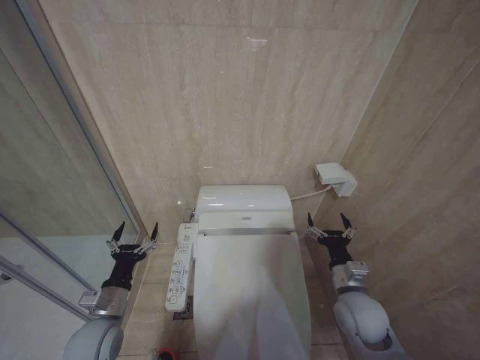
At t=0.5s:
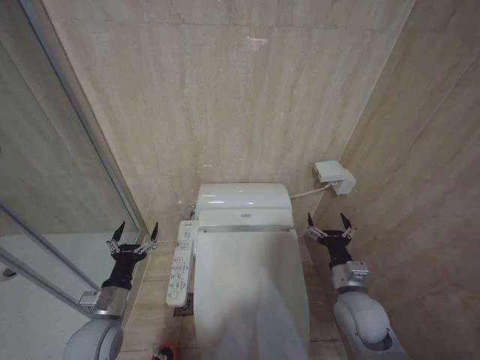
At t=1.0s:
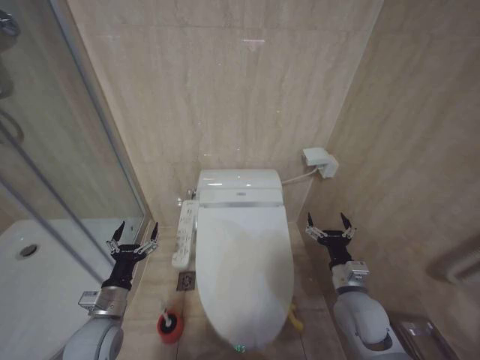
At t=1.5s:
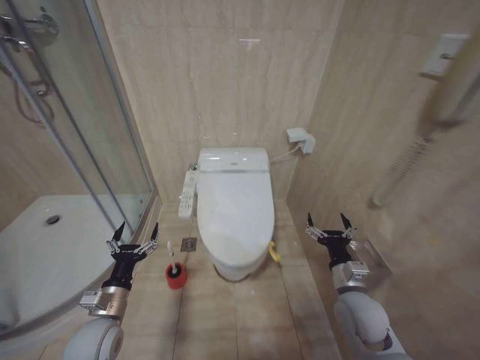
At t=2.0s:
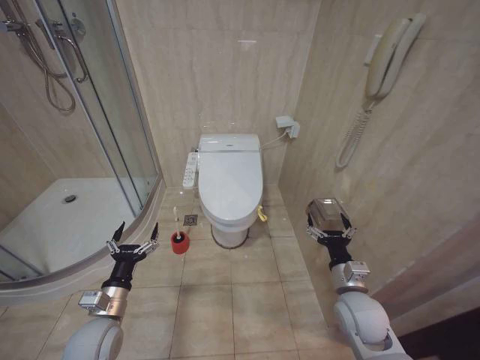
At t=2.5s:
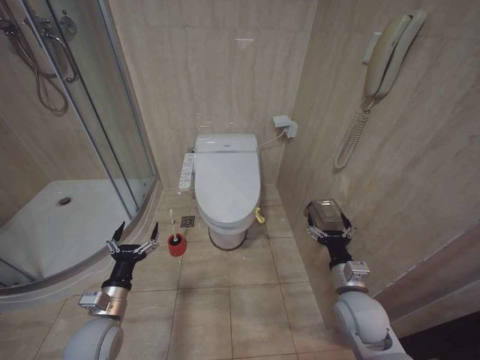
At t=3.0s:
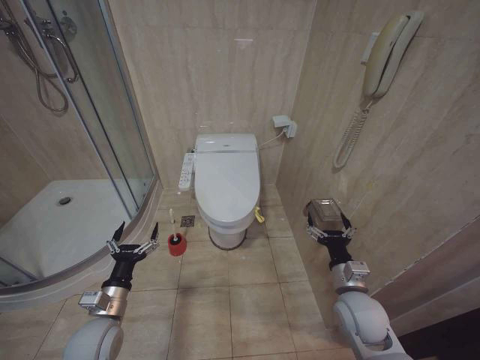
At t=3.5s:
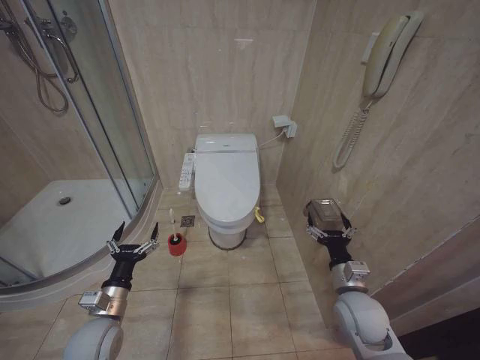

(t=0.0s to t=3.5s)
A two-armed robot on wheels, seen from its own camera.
Task of the whole recording: Open the toilet lid, clean the toilet bowl with a toilet brush, close the toilet lid, and flush.
t=2.0s - t=3.5s: The two grippers keep their place.

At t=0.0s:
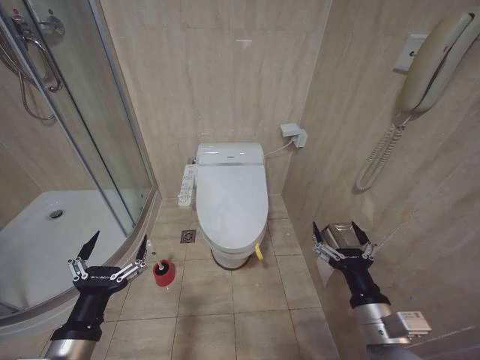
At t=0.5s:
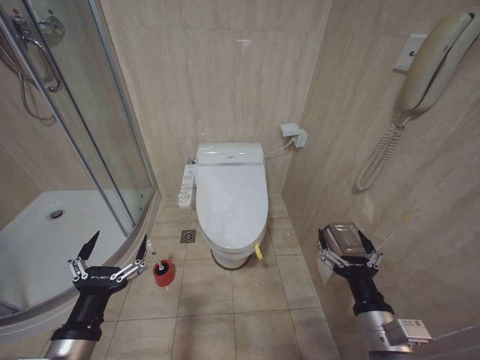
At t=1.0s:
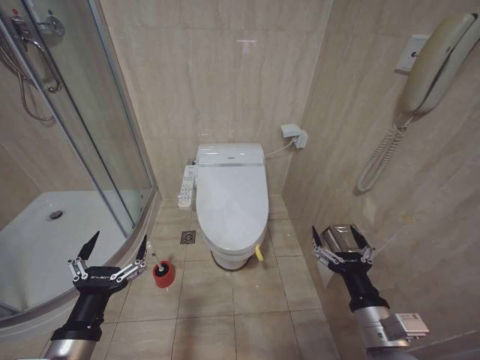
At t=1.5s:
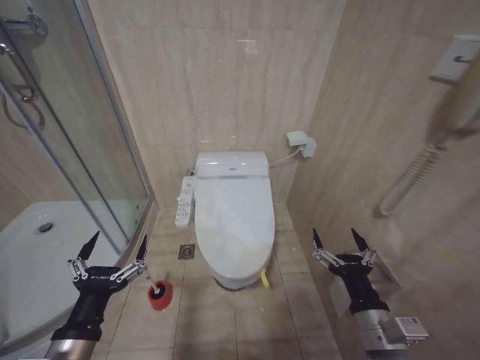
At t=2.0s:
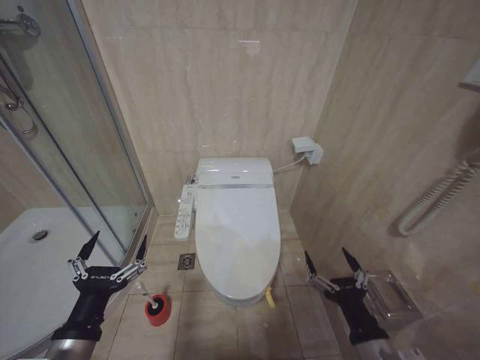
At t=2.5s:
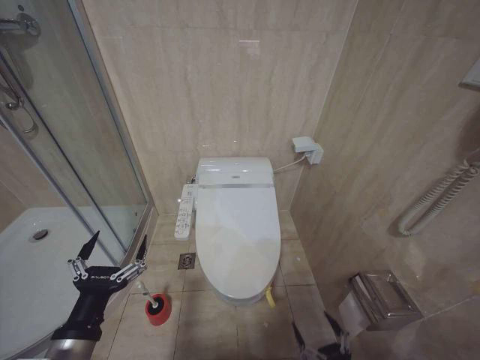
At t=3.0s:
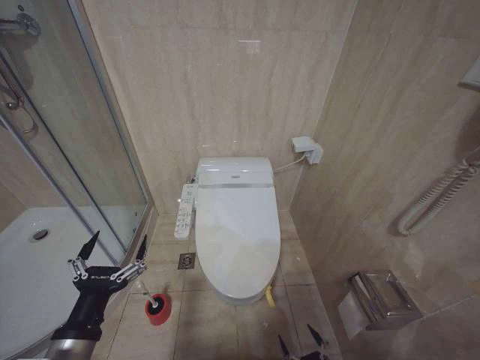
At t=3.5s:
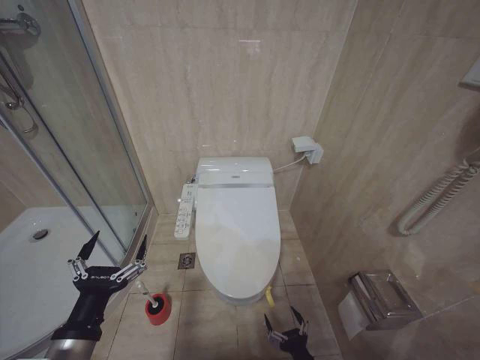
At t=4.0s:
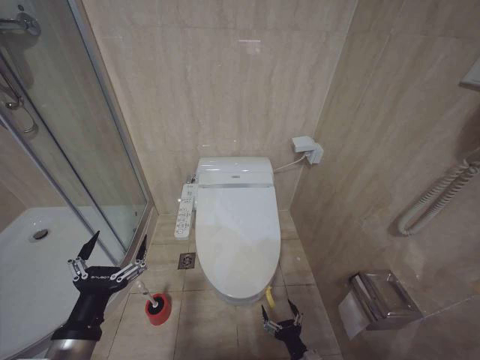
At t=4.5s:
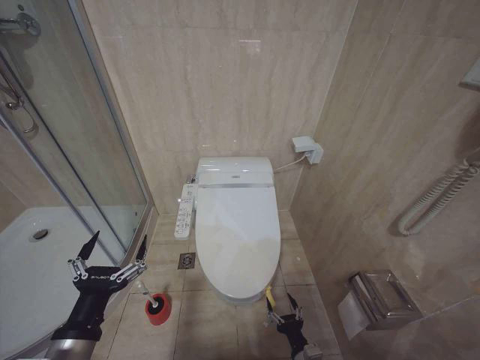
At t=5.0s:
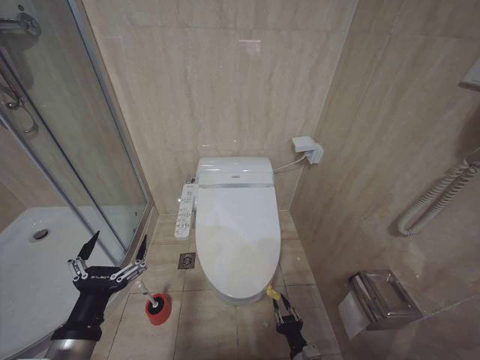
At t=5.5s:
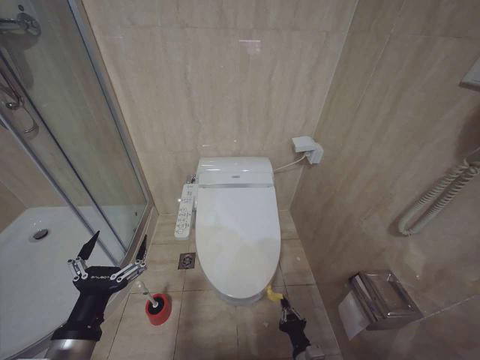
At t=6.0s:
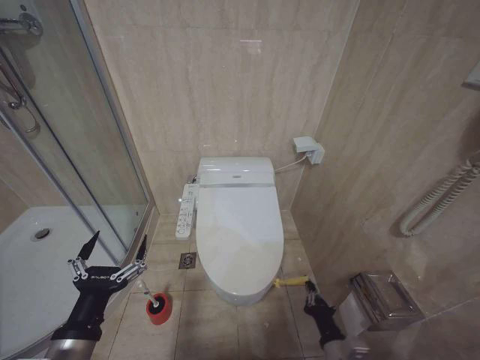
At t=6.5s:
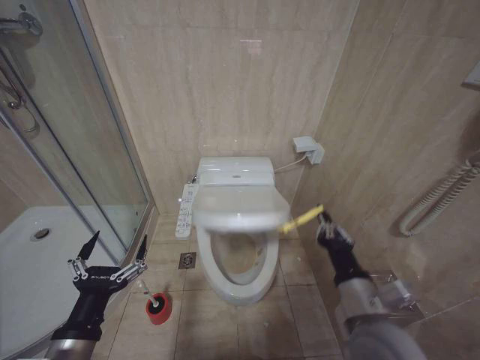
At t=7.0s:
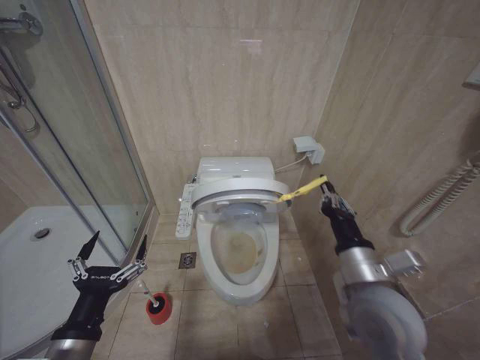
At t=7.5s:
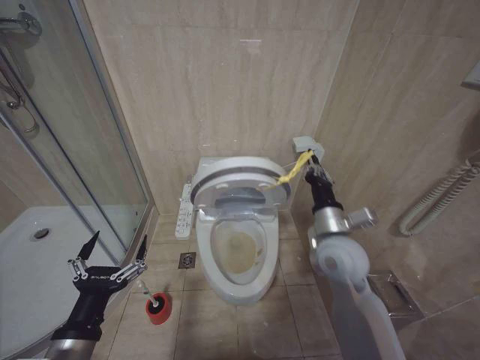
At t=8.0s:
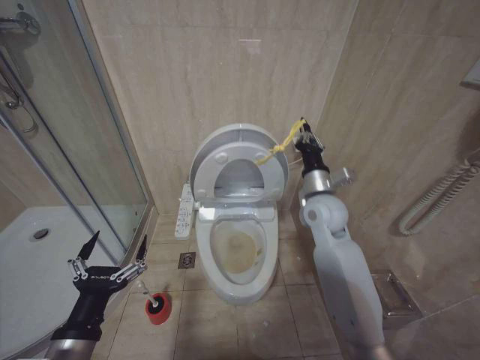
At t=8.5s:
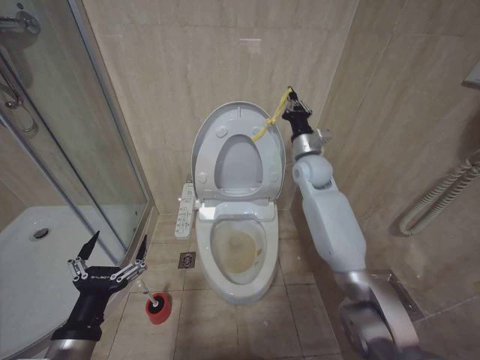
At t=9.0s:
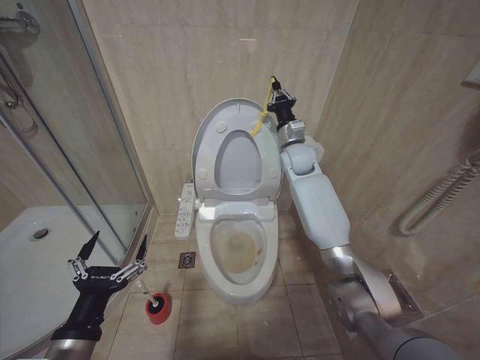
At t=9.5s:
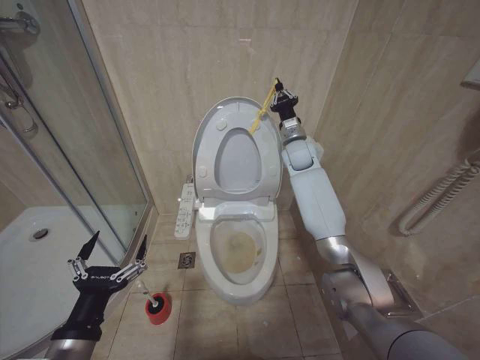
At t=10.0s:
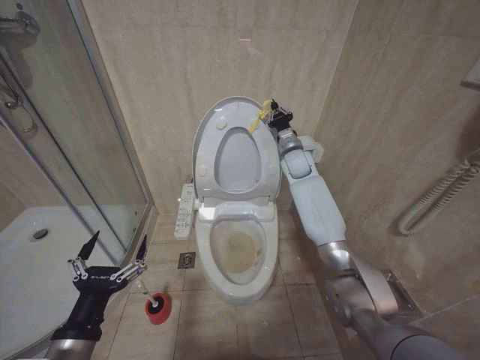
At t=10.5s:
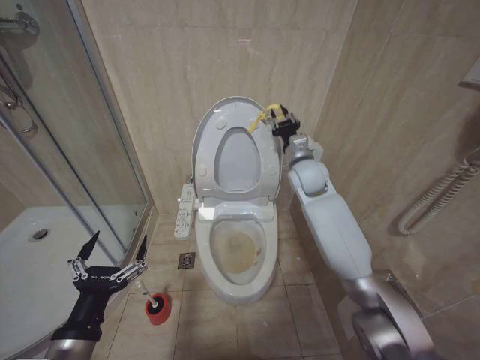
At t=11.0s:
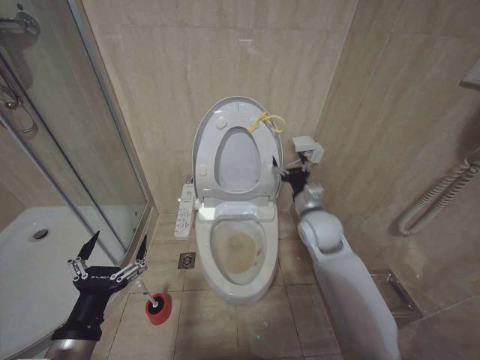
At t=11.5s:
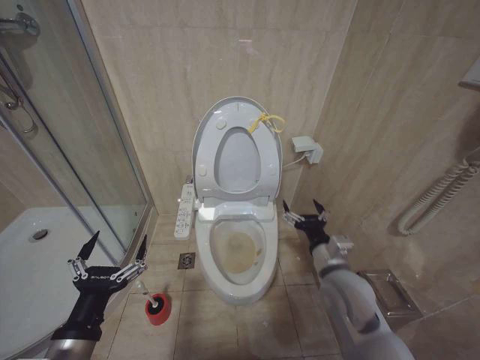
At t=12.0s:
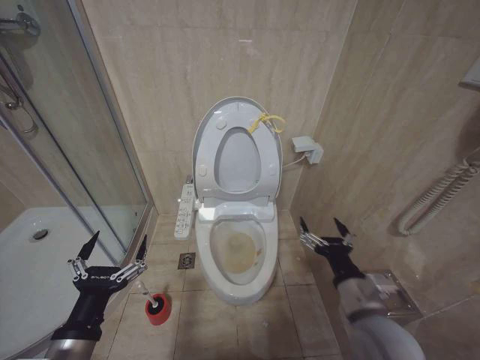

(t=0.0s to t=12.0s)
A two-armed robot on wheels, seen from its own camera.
Task of the whole recording: Open the toilet lid, clean the toilet bowl with a toilet brush, close the toilet lid, and flush.
t=2.0s - t=4.0s: The right gripper shifts roughly 25 cm downward.
t=4.0s - t=6.0s: The right gripper goes about 10 cm upward, and closes.
t=6.0s - t=8.0s: The right gripper is displaced upward and forward by approximately 40 cm.
t=8.0s - t=10.0s: The right gripper travels forward by roughly 20 cm.
t=10.0s - t=12.0s: The right gripper travels backward by some 40 cm, and opens its fingers.

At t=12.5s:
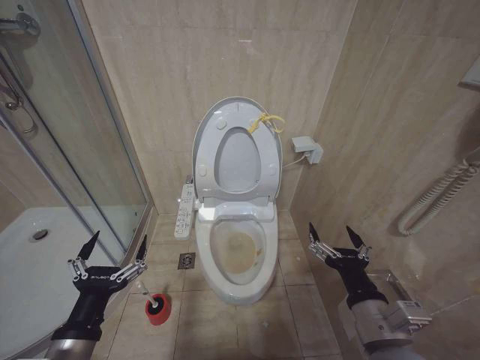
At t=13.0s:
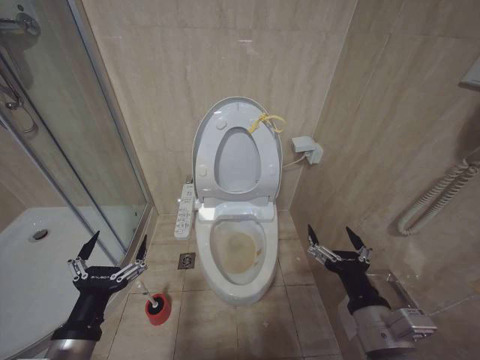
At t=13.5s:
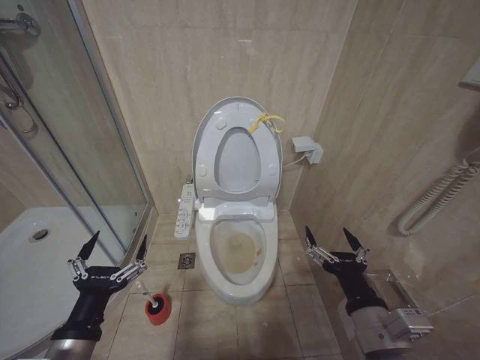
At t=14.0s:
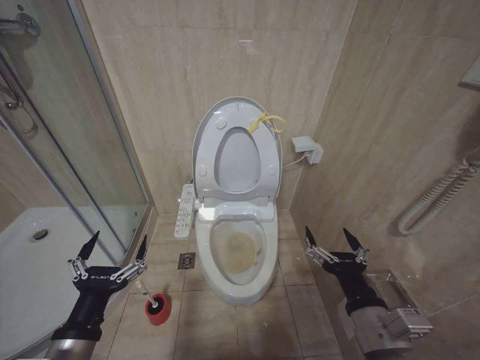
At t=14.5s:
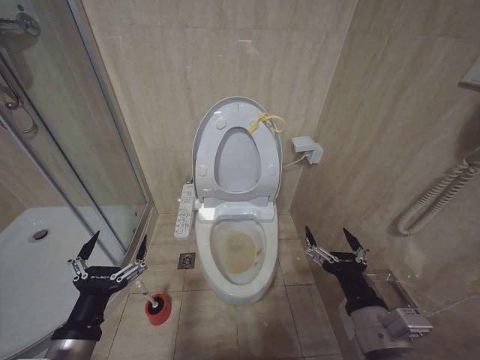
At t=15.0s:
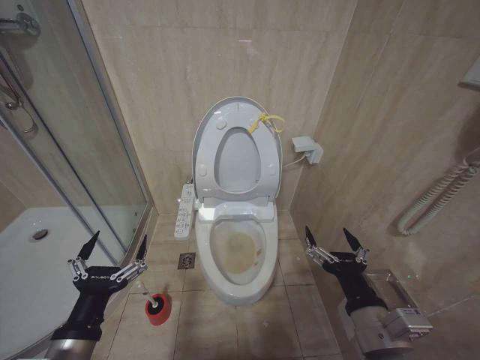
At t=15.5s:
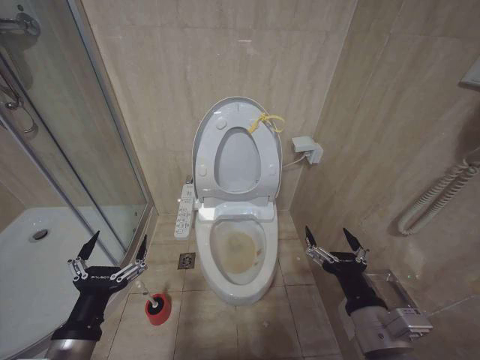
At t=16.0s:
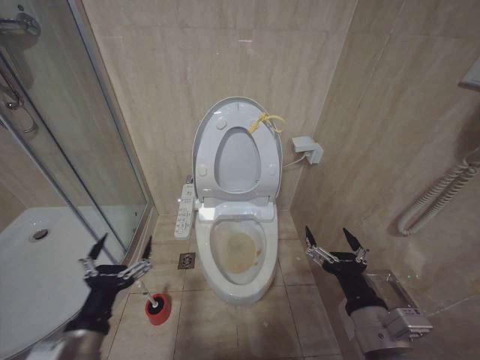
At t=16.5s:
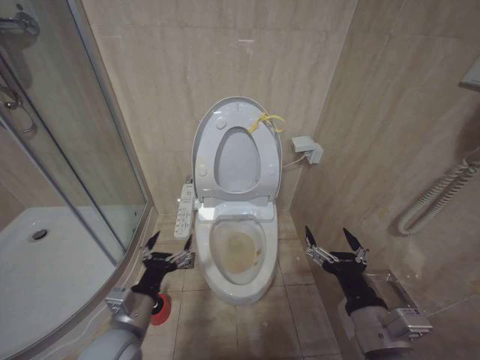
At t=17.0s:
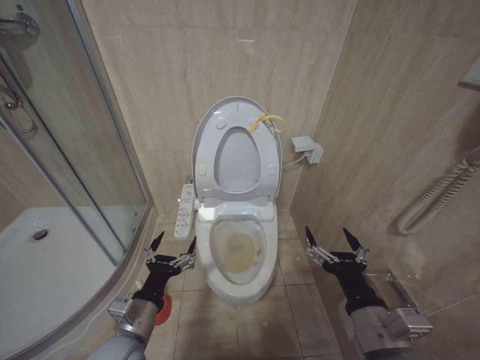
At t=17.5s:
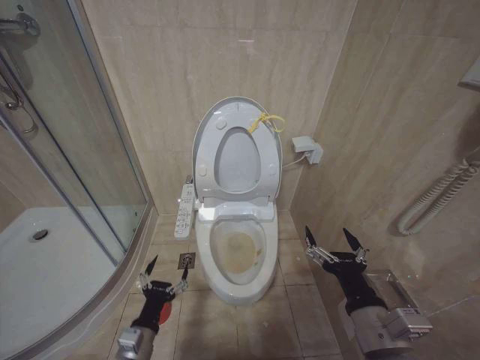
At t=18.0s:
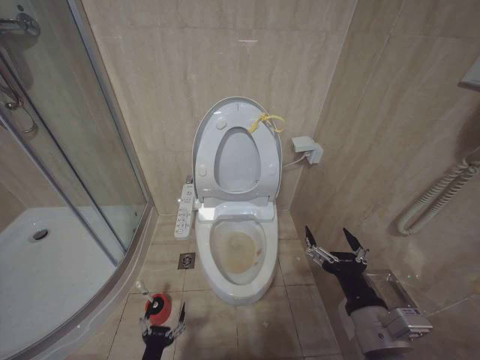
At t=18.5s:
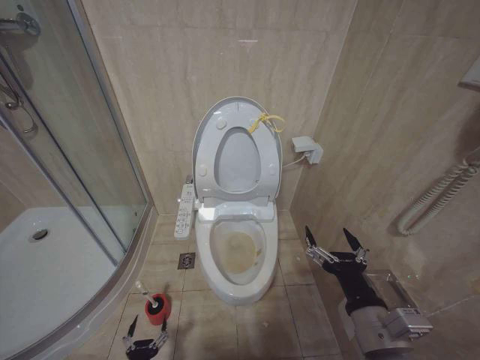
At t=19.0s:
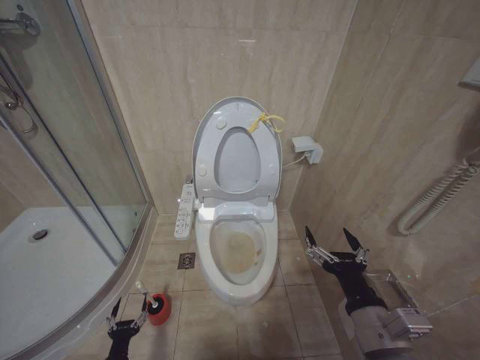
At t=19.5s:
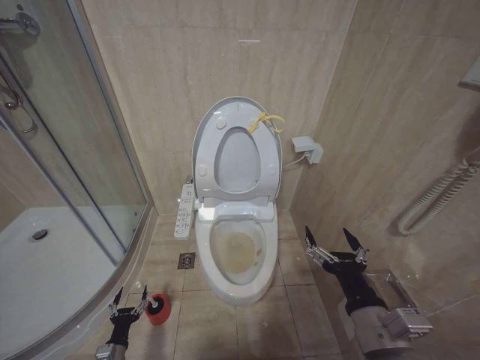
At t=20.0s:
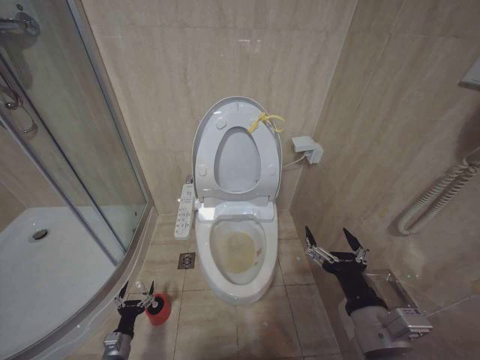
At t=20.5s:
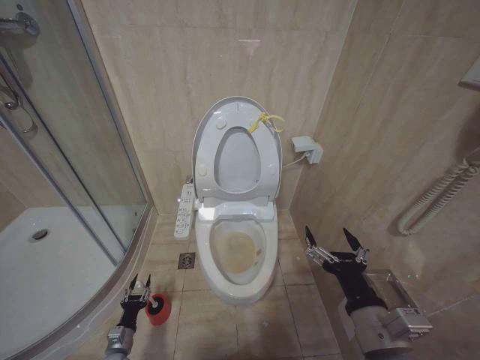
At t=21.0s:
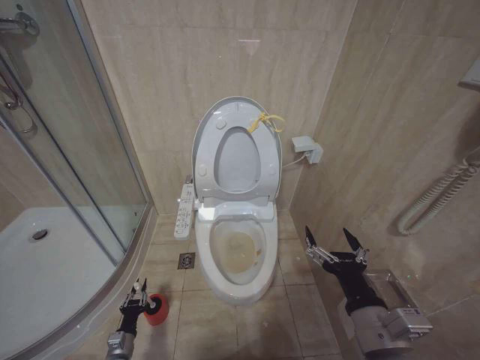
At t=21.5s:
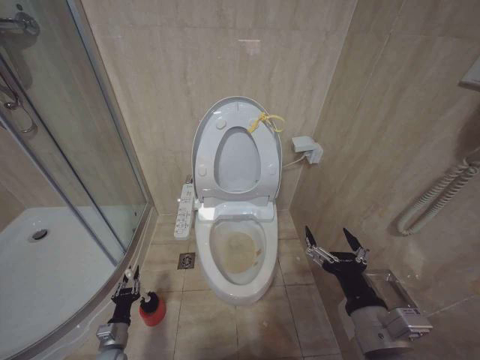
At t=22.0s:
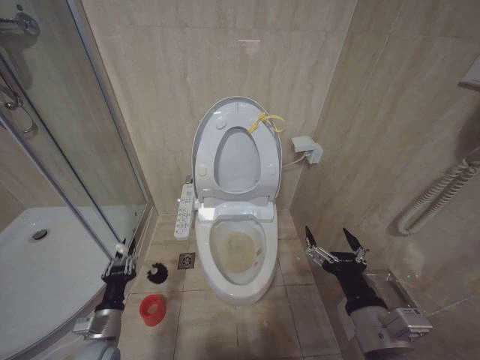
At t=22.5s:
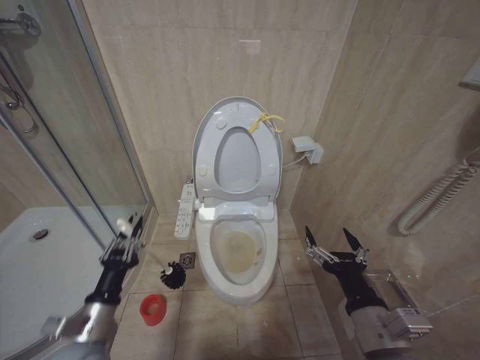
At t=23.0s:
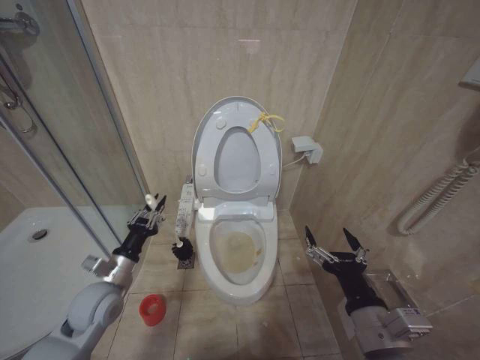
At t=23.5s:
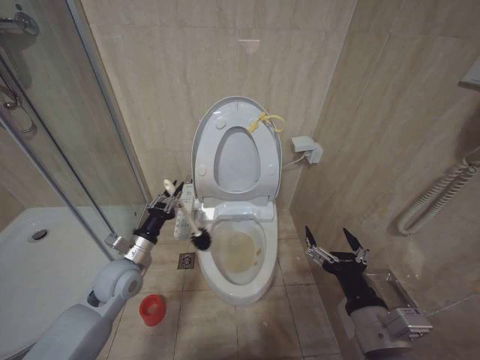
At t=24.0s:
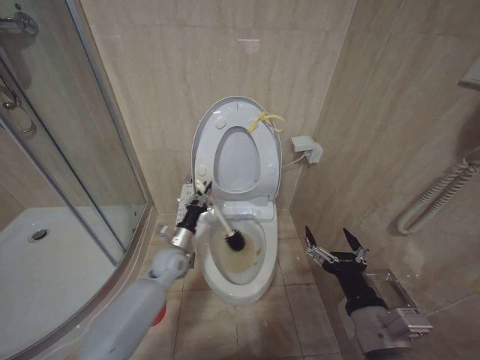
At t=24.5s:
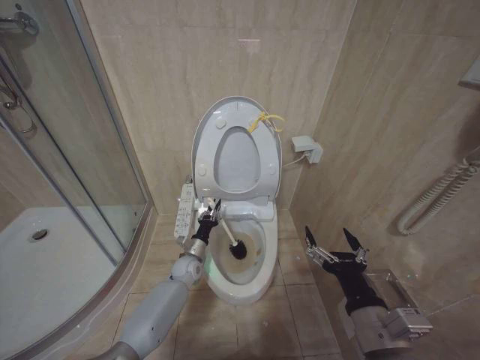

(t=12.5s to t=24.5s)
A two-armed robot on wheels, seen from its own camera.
Task of the whole recording: Open the toilet lid, clean the toilet bowl with a toilet brush, close the toilet lid, and flush.
t=12.5s - t=14.5s: Neither gripper changes place.
t=14.5s - t=16.5s: The left gripper goes roughly 10 cm forward.
t=16.5s - t=18.5s: The left gripper travels downward by some 30 cm.
t=18.5s - t=20.5s: The left gripper travels forward and to the left by about 15 cm.
t=20.5s - t=22.5s: The left gripper travels upward by about 30 cm, and closes.
t=22.5s - t=24.5s: The left gripper moves forward, to the right and downward, approximately 35 cm.
